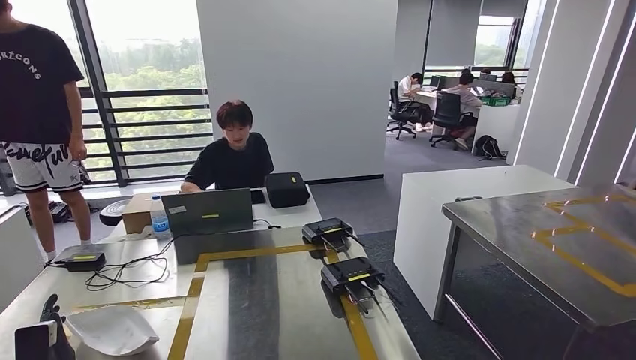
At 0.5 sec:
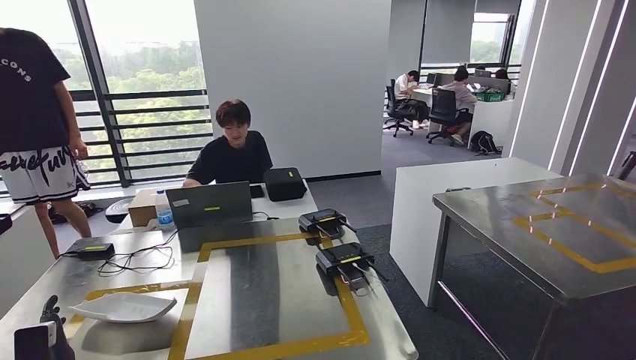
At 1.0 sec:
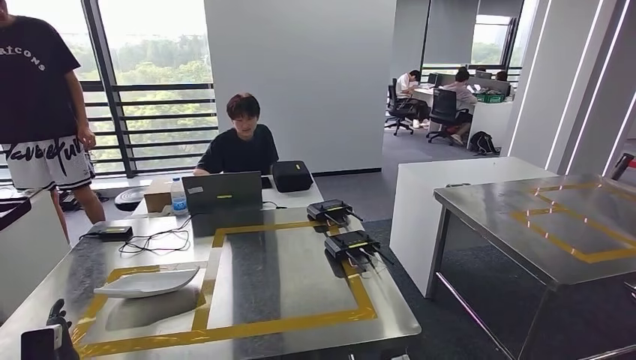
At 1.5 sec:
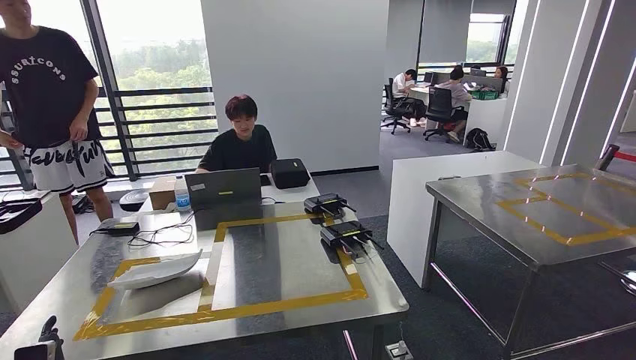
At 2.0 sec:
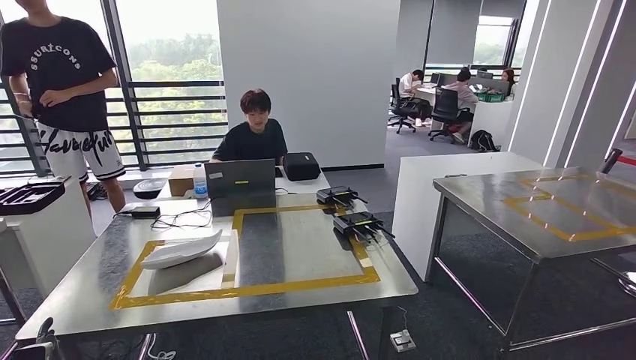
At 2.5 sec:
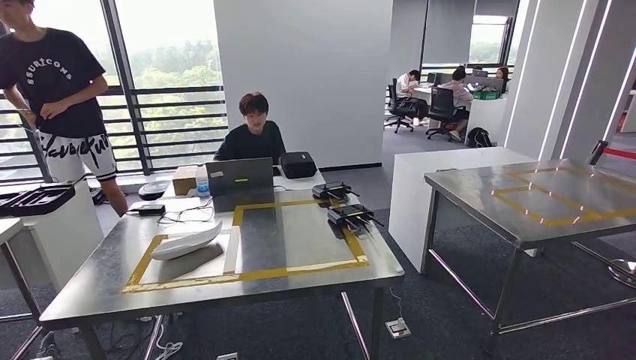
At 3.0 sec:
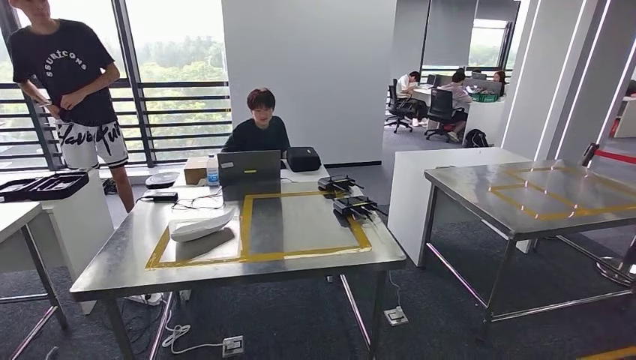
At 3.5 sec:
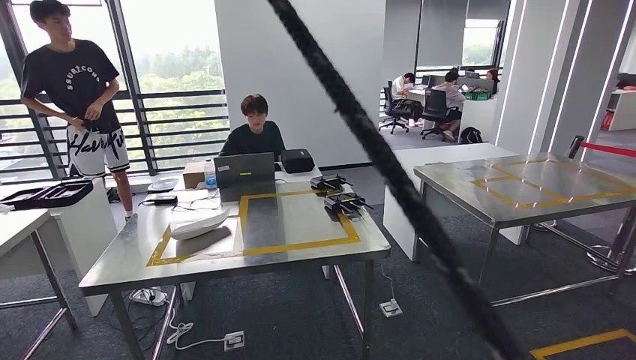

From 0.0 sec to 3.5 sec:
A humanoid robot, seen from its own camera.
Step, from 0.0 sec to 3.5 sec: Return to the initial position at the workbench.

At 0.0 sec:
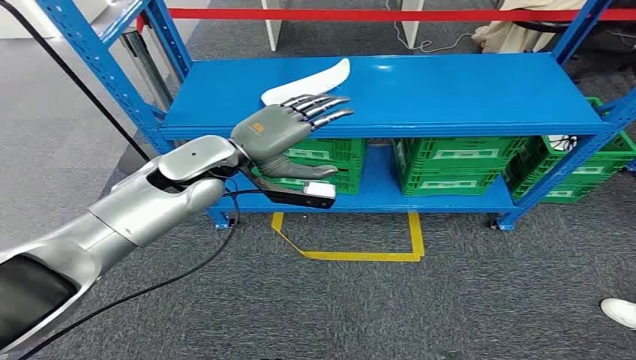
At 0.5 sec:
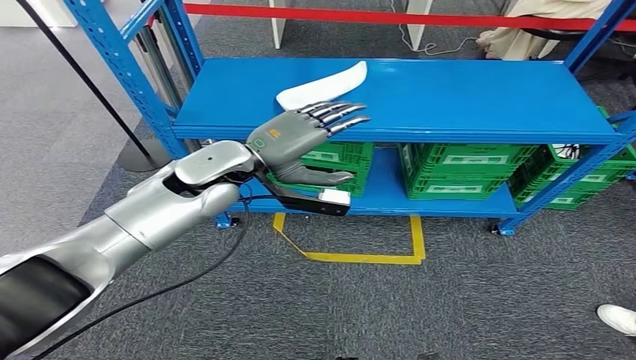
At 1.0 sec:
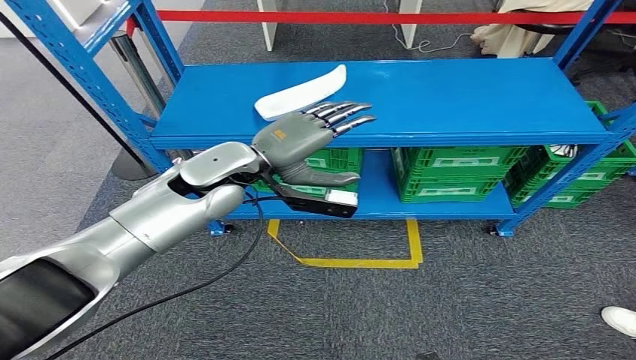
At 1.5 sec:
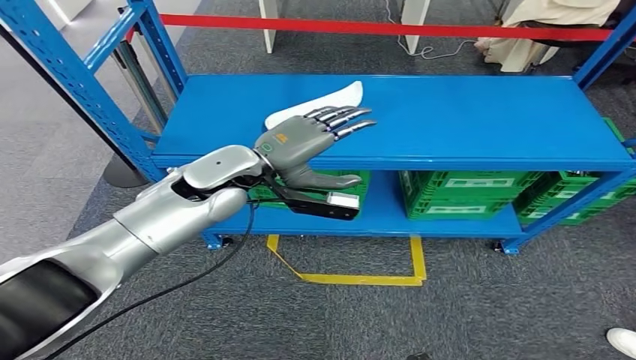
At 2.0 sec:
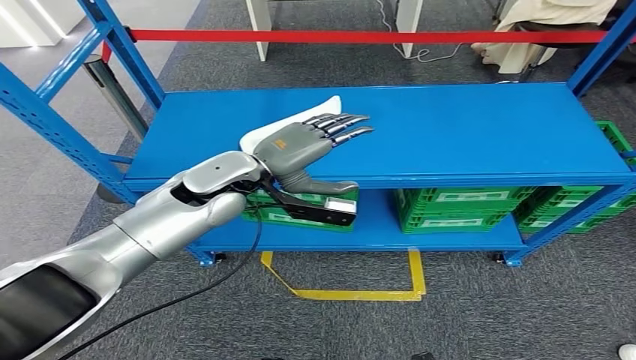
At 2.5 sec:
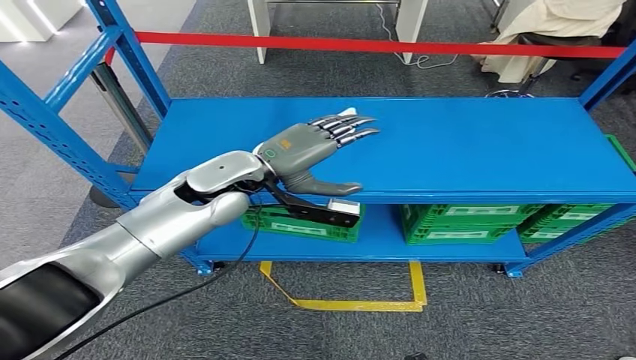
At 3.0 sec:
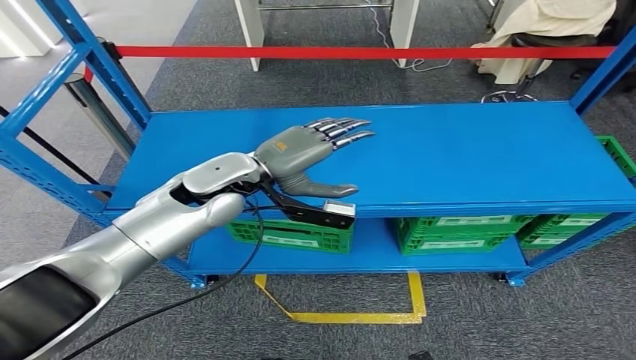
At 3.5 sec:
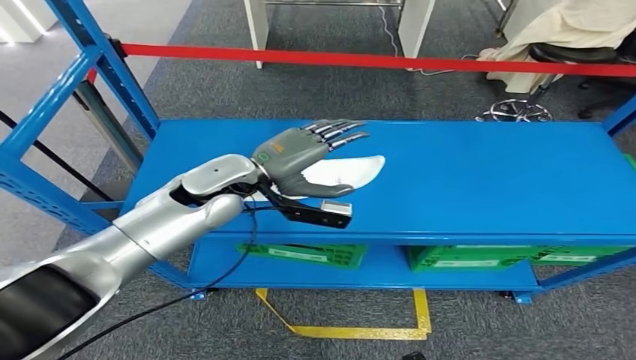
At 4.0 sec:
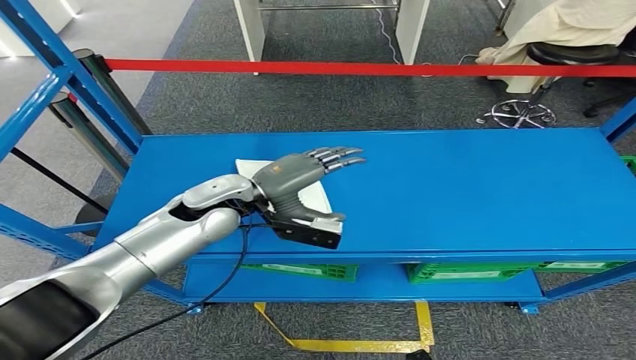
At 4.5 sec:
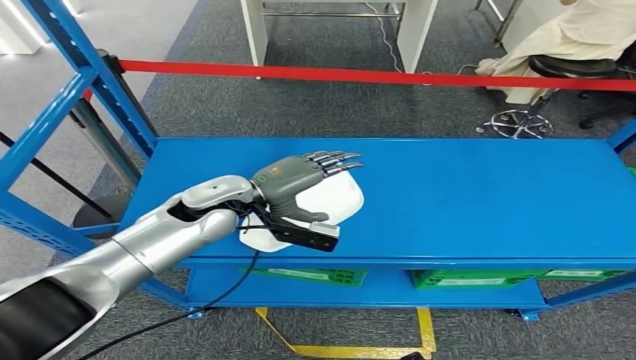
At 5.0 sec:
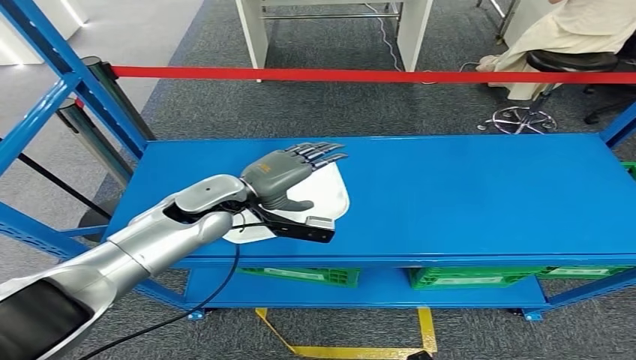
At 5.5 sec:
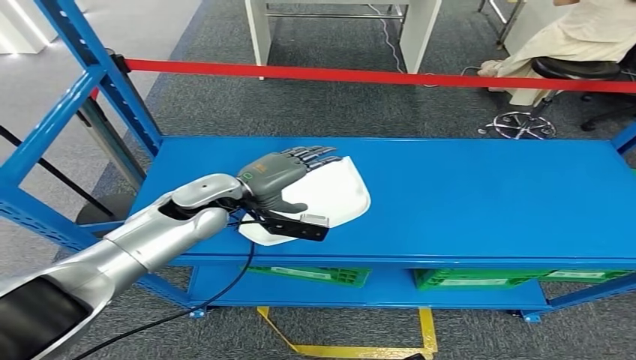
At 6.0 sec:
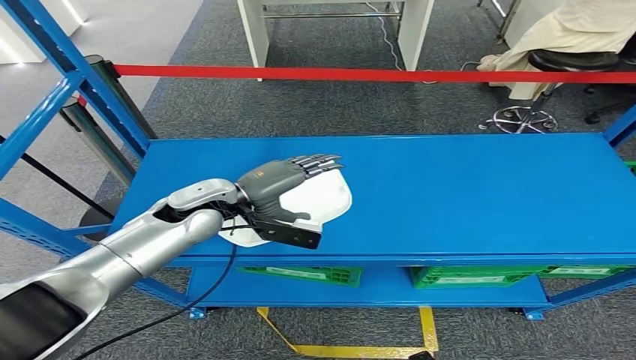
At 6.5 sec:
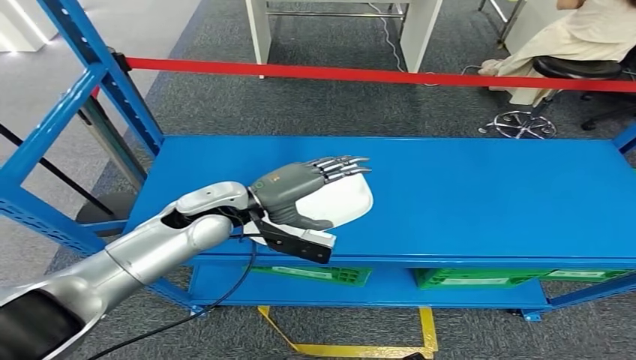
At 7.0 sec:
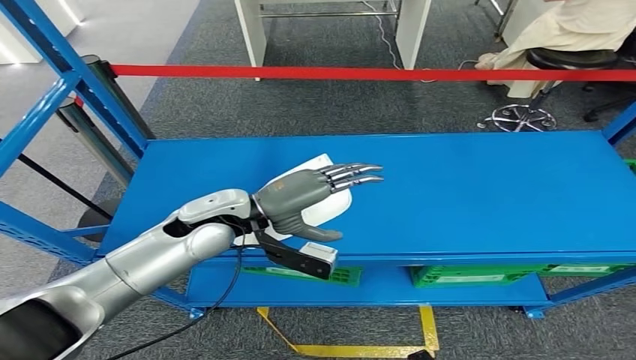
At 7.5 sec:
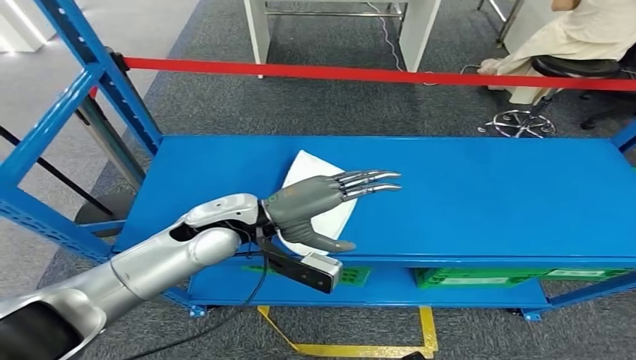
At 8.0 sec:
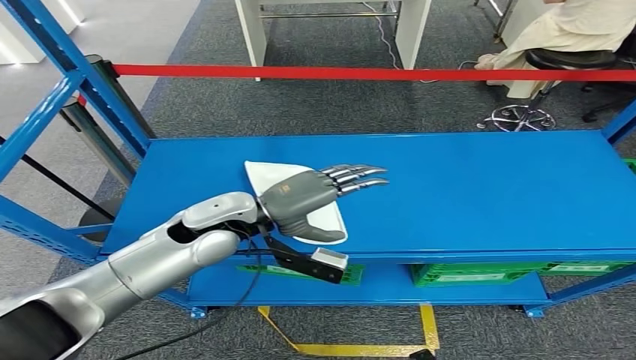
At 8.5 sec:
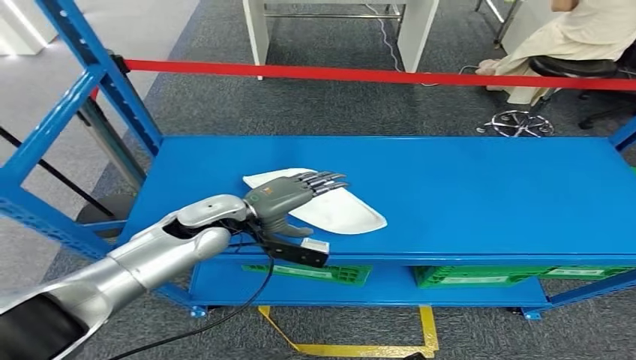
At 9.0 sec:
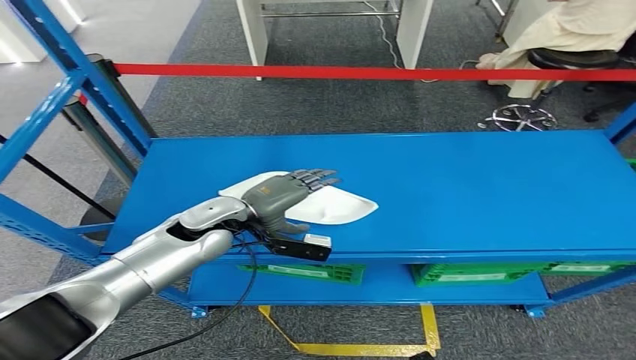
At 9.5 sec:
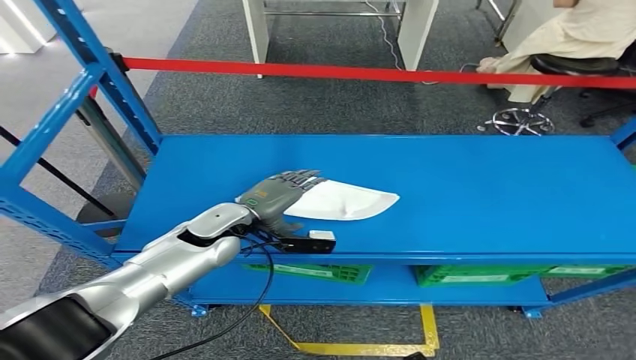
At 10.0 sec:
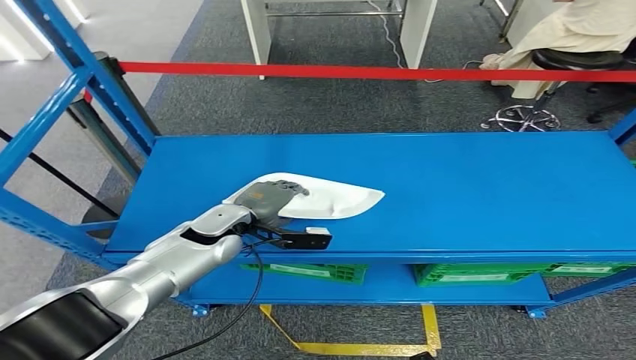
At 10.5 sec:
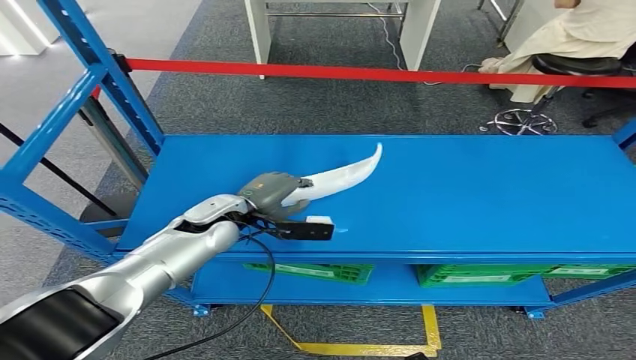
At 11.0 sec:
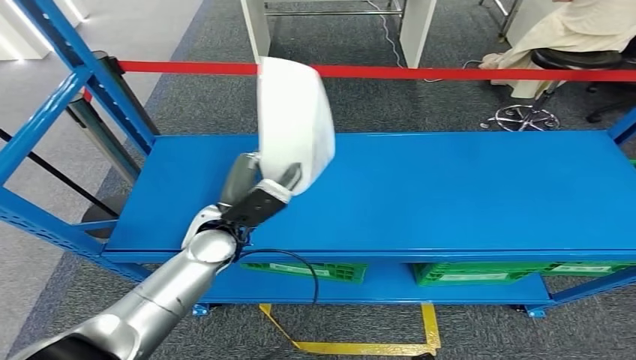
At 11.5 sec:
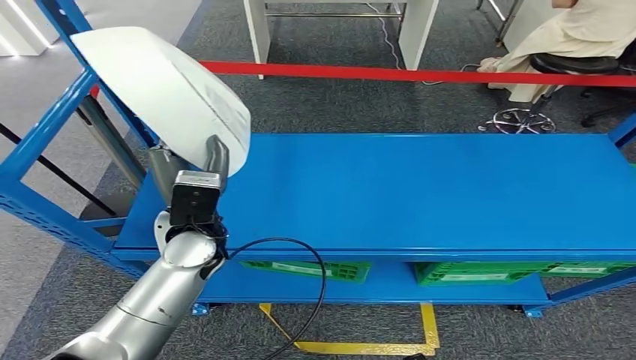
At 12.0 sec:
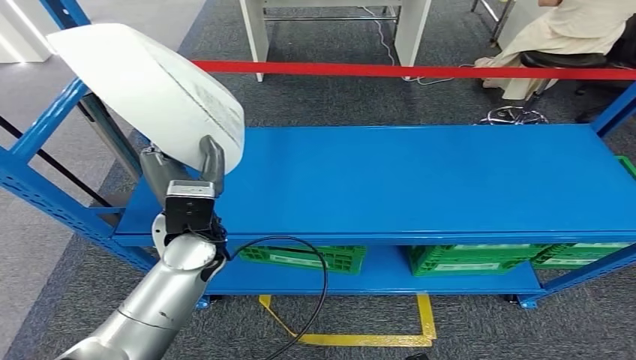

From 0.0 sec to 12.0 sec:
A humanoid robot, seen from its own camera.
From 6.0 sec to 8.0 sec: The left hand changes place by approximately 5 cm.

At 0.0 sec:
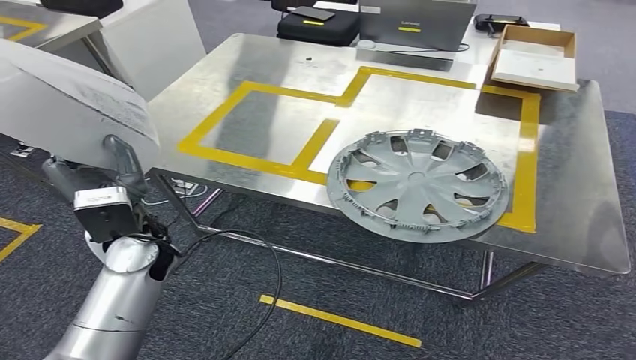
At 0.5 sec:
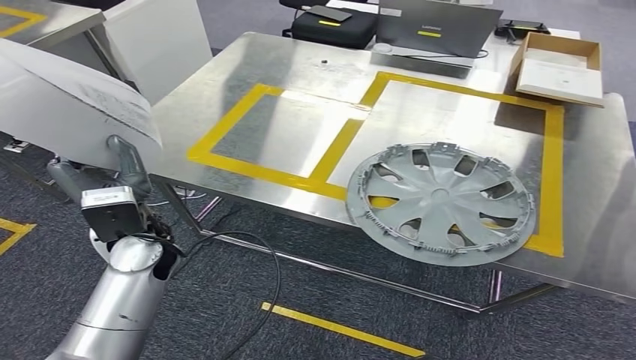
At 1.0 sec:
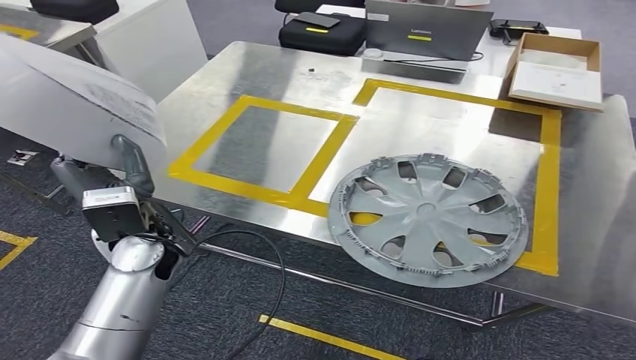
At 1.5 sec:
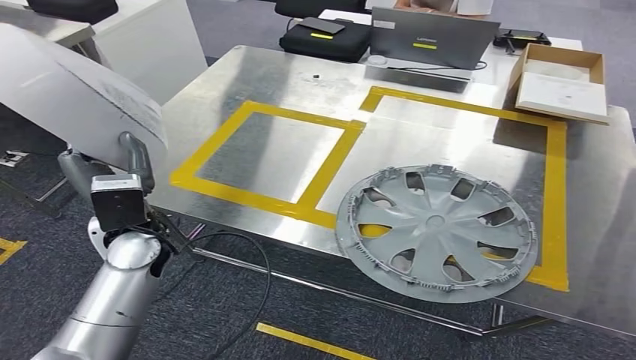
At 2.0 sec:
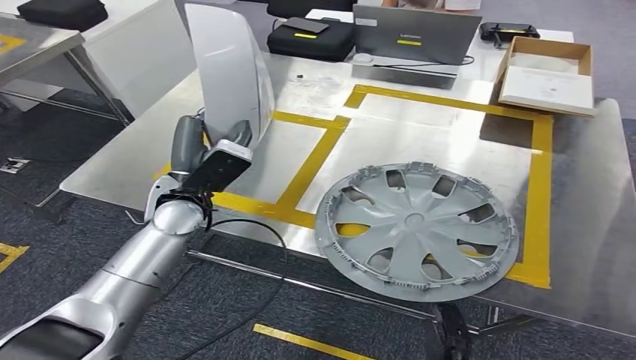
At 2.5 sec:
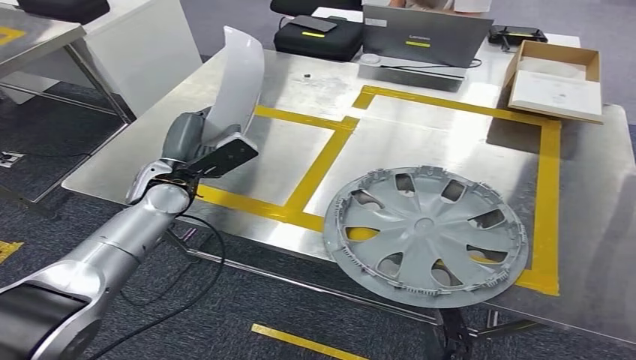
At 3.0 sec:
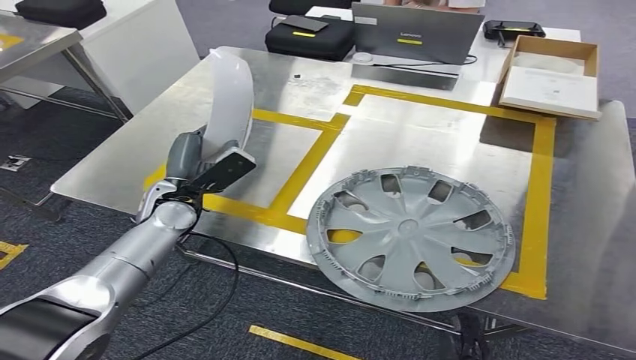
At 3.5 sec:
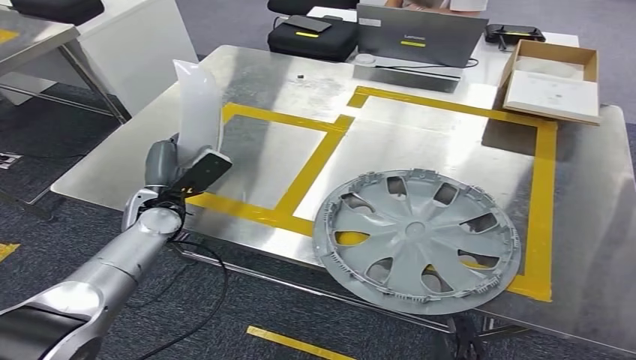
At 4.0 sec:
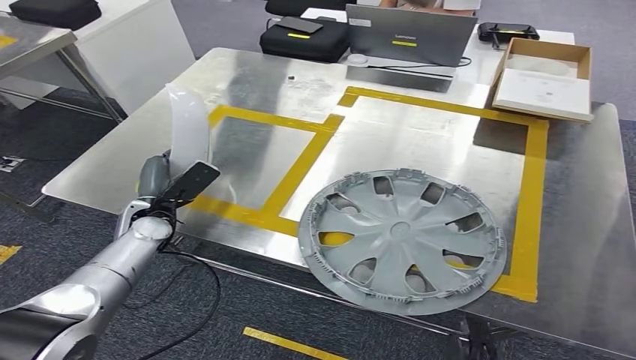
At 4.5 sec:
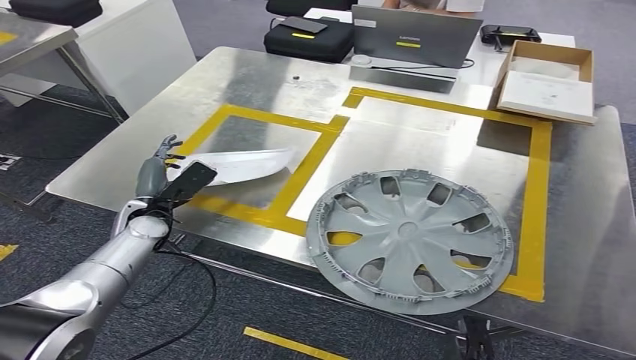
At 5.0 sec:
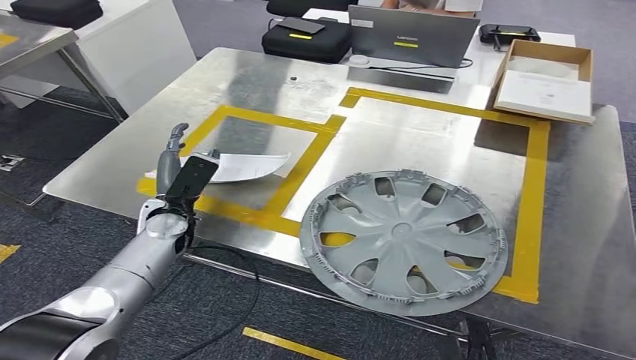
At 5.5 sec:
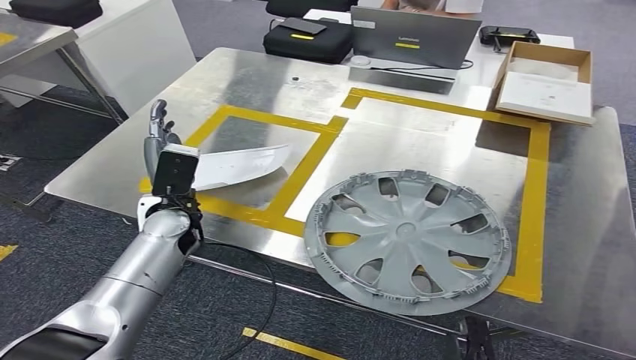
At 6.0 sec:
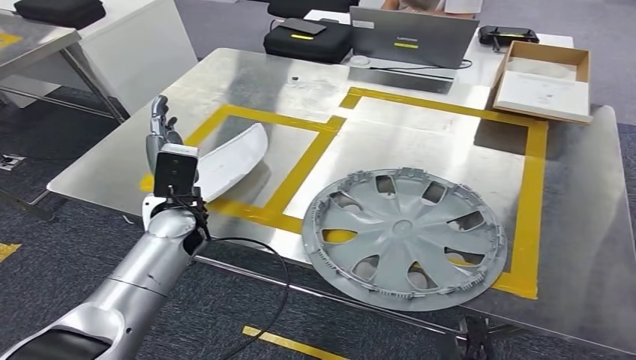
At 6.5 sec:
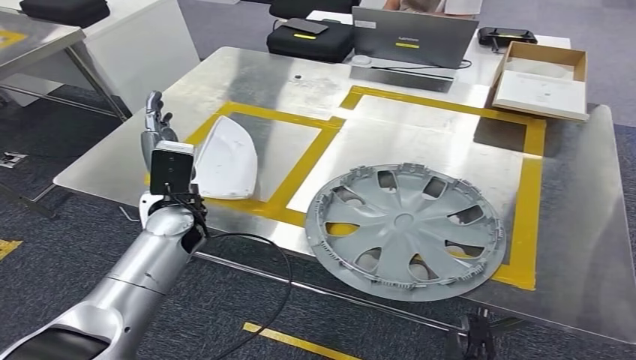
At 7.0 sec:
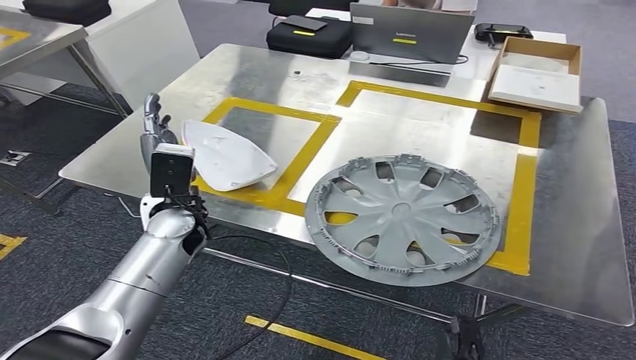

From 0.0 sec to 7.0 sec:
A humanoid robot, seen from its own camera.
Step, from 1.0 sec to 6.5 sec: Insert the small component into the corresponding slot on the workbench.
